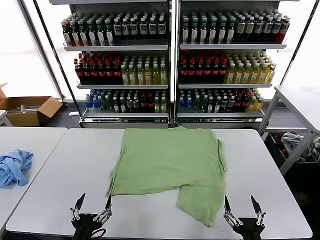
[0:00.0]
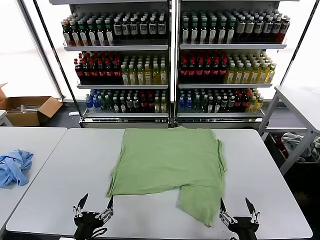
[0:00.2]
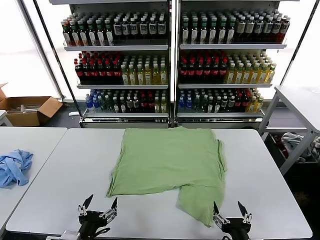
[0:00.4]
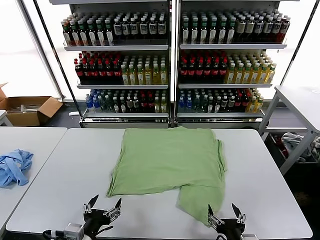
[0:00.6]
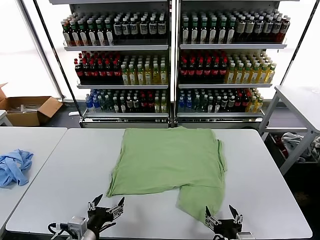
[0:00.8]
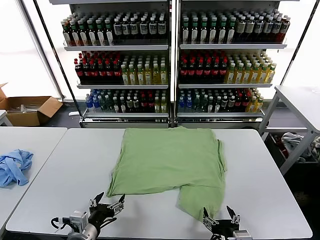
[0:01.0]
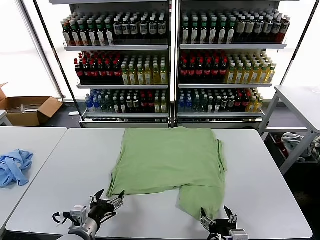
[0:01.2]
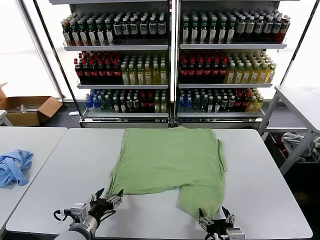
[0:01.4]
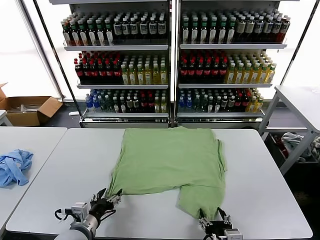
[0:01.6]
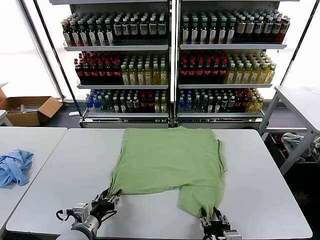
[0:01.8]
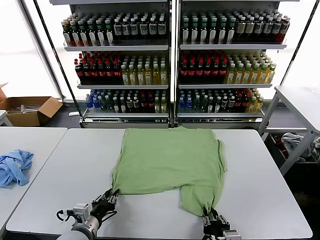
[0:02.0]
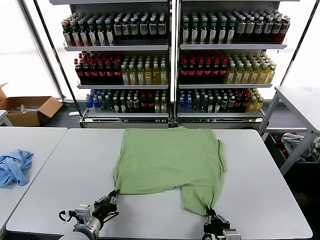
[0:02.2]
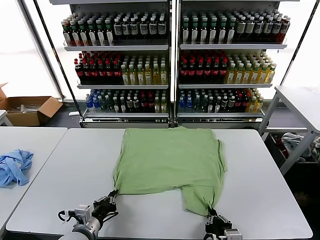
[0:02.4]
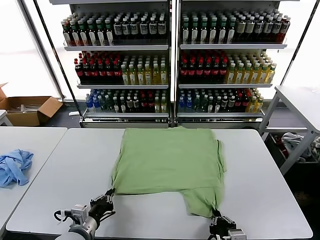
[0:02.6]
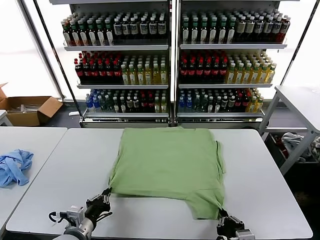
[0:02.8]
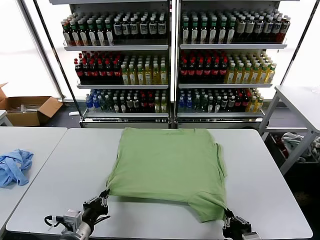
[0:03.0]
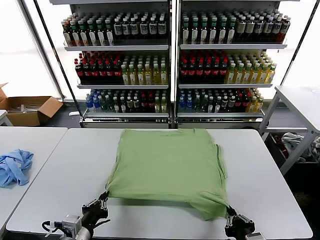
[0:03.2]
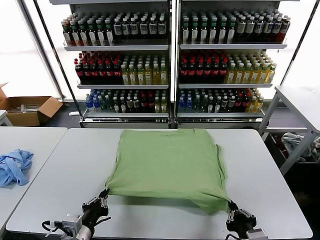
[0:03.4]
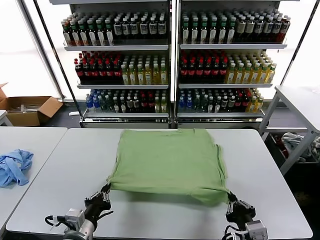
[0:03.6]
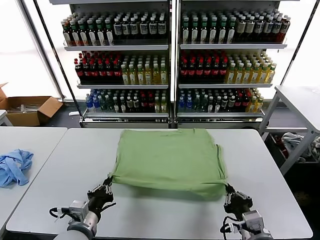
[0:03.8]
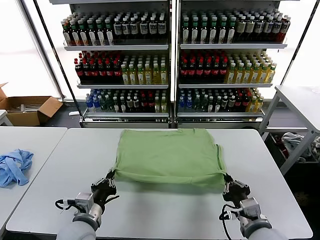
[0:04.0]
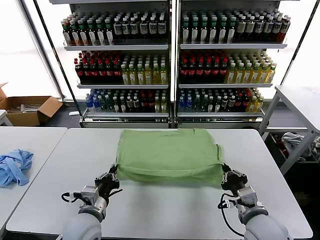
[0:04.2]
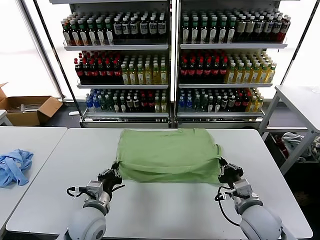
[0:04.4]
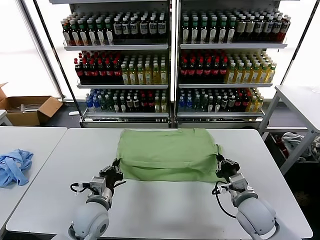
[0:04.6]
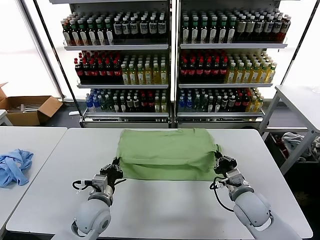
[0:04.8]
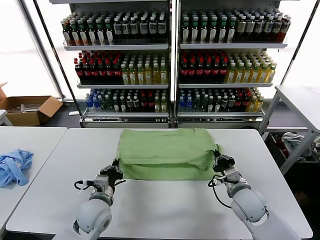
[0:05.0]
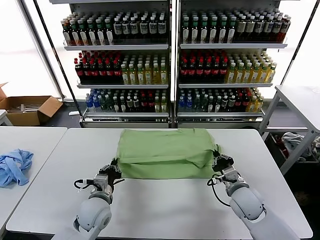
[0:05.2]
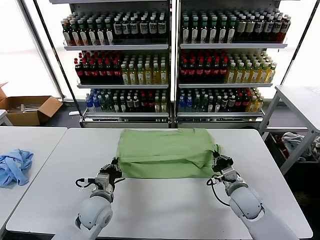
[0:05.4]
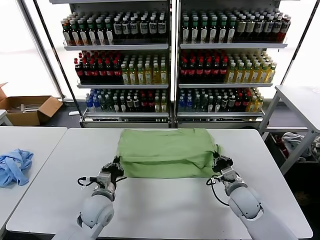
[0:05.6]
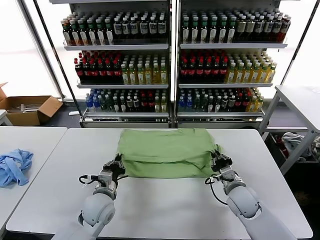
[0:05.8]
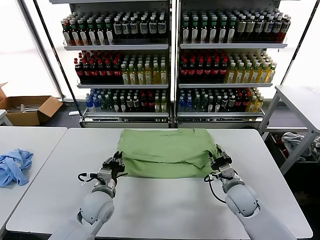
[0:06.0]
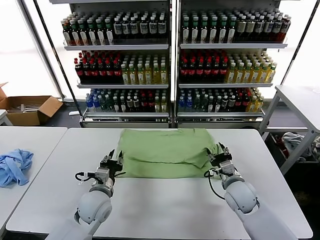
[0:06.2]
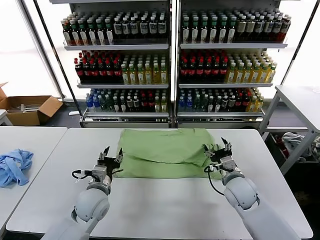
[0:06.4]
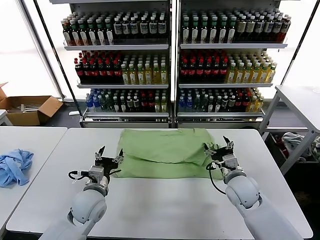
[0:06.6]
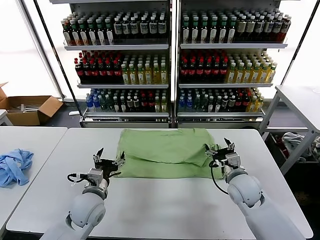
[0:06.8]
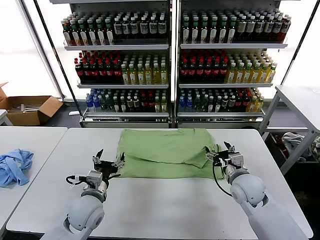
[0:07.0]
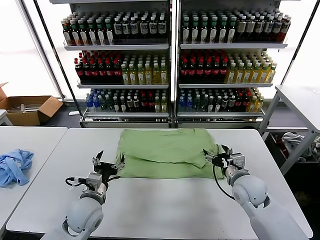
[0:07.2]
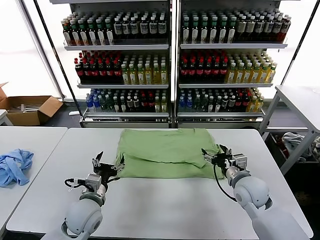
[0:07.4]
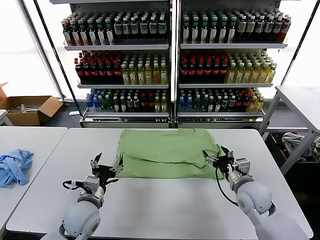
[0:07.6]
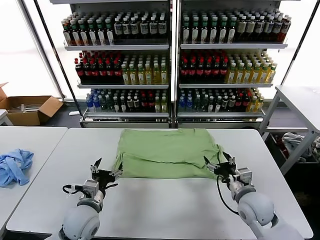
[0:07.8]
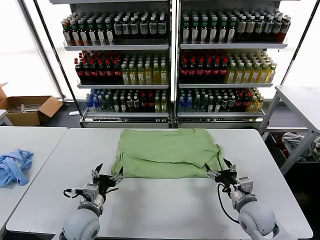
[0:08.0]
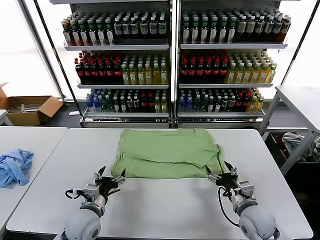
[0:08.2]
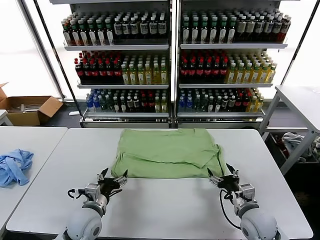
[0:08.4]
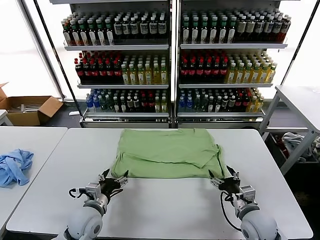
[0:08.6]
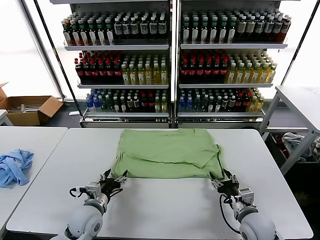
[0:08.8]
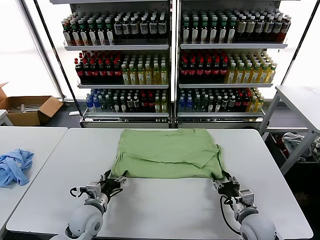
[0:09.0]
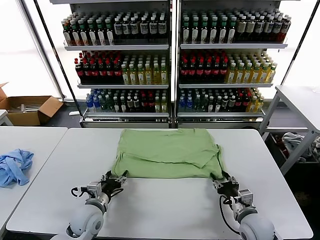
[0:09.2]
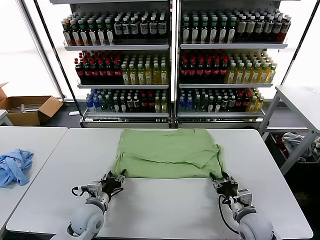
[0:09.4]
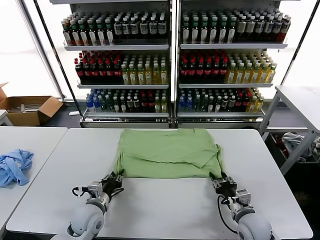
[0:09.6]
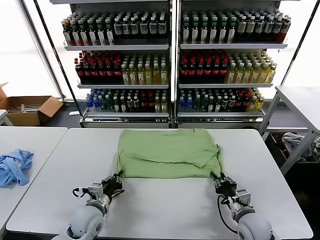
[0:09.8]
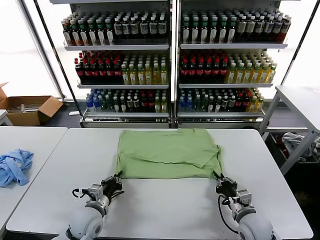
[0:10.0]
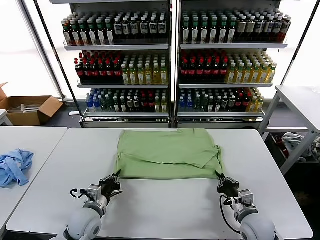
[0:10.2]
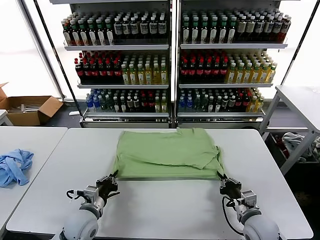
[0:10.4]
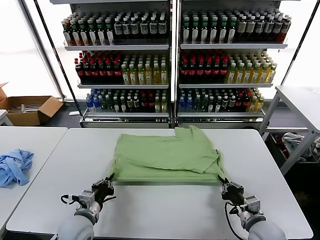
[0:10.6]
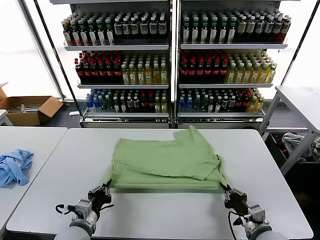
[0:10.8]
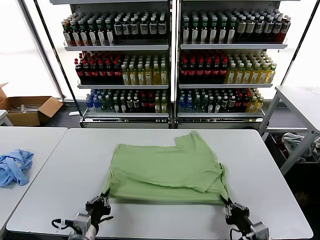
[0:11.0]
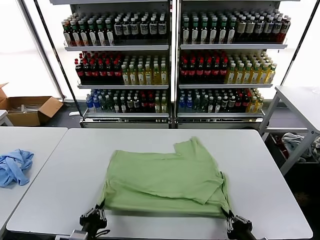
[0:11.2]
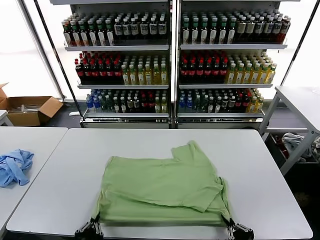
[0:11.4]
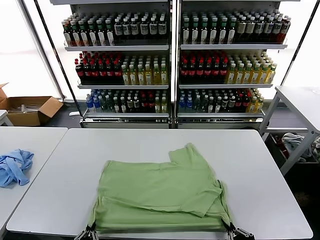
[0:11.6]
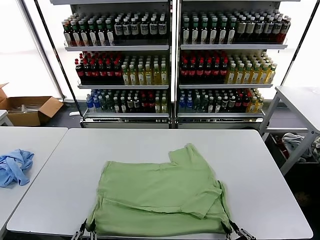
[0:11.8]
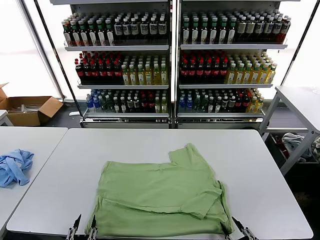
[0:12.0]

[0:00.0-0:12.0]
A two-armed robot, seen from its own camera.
Task of the whole recording: fold and organize the clothes.
Step, 0.0 to 2.4 s: use both grippers simultaneously to clamp the lower edge of the clothing fabric.
Step, 2.6 to 7.0 s: use both grippers to drag the lower edge of the fabric forward and fold it over the upper edge.
Step, 7.2 to 12.0 s: Drag the clothes downward with both gripper.
1.6 to 3.0 s: The right gripper ends up about 5 cm from where it was, and closes. The left gripper closes up.
3.0 to 4.4 s: The left gripper goes some 10 cm forward and to the right. Meanwhile the right gripper heads forward, covering about 15 cm.
4.4 to 6.0 s: The grippers both shift forward by approximately 5 cm. The right gripper opens.
6.0 to 7.6 s: The left gripper shifts by some 5 cm, and opens. Meanwhile the right gripper changes place by about 5 cm, and opens.
7.6 to 9.0 s: The left gripper goes some 5 cm downward. The right gripper travels downward and backward by approximately 10 cm, and closes.
9.0 to 10.4 s: The left gripper closes up; the right gripper closes.
10.4 to 12.0 s: The grippers both shift backward by approximately 20 cm. The right gripper opens up. The left gripper opens up.

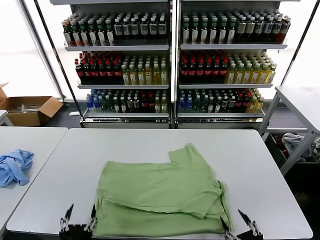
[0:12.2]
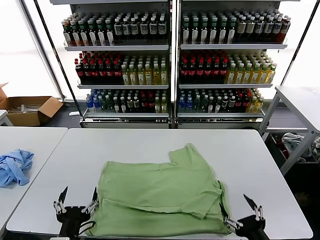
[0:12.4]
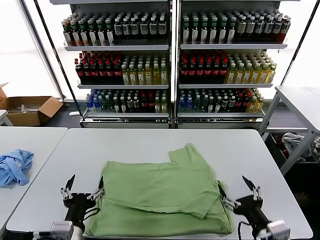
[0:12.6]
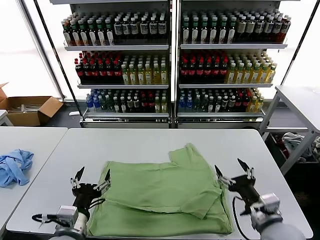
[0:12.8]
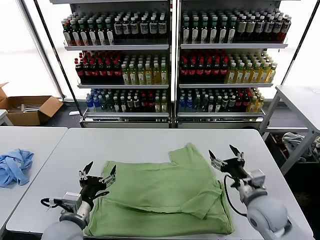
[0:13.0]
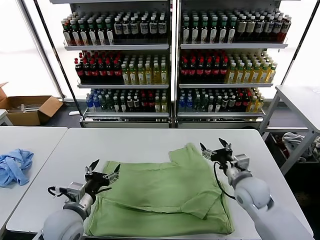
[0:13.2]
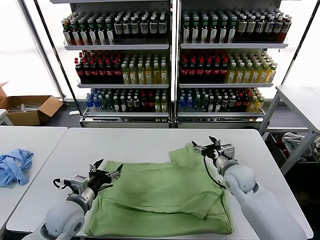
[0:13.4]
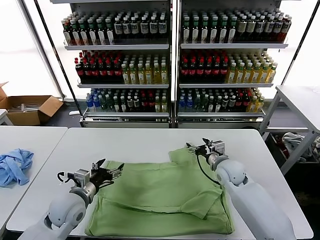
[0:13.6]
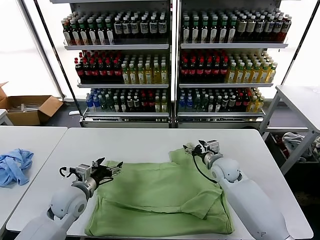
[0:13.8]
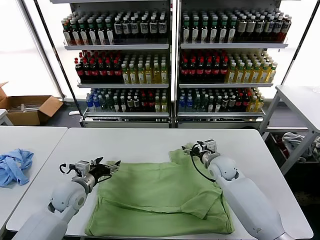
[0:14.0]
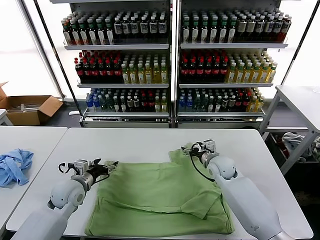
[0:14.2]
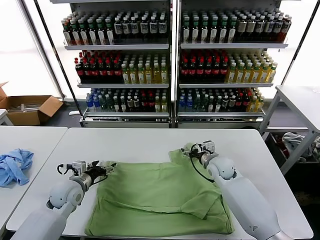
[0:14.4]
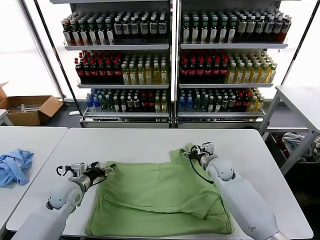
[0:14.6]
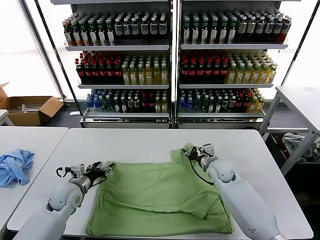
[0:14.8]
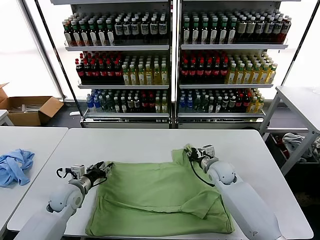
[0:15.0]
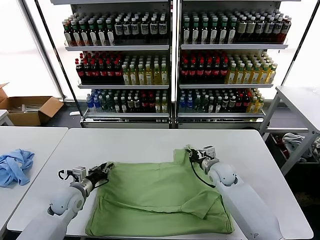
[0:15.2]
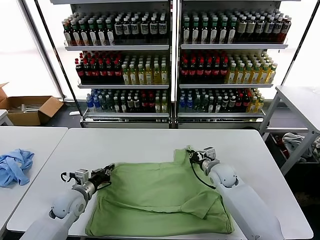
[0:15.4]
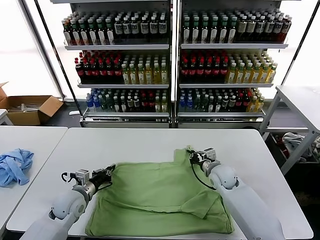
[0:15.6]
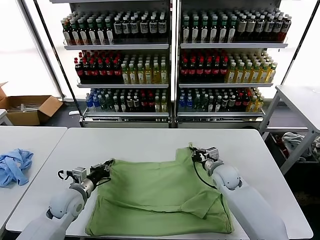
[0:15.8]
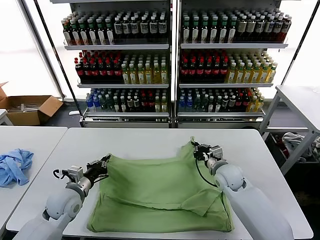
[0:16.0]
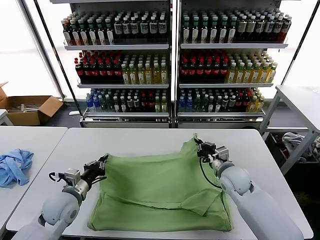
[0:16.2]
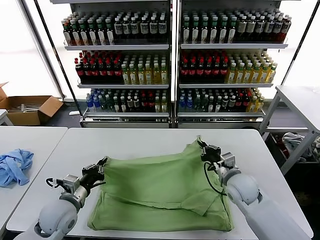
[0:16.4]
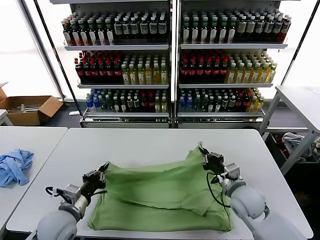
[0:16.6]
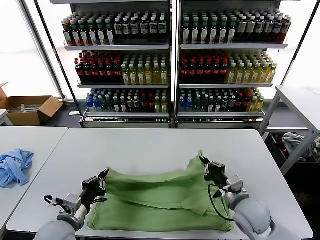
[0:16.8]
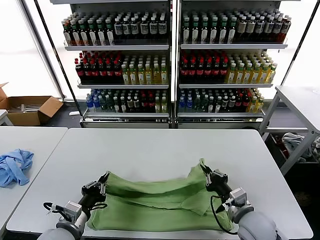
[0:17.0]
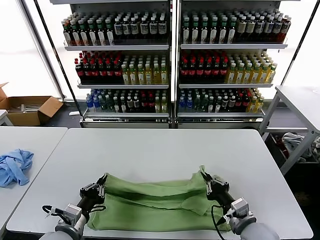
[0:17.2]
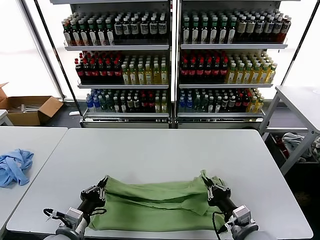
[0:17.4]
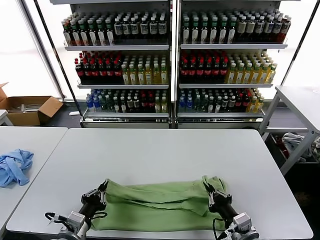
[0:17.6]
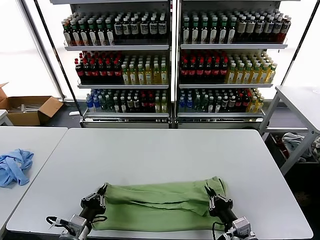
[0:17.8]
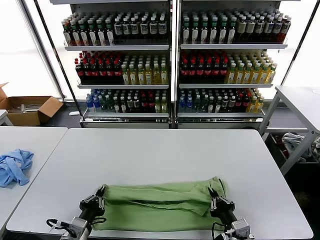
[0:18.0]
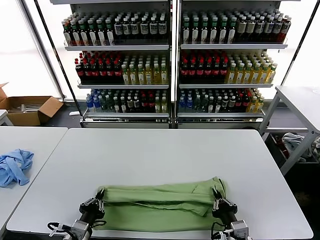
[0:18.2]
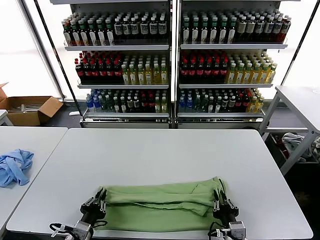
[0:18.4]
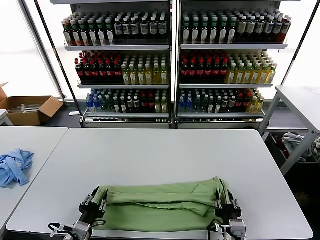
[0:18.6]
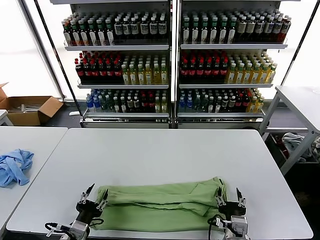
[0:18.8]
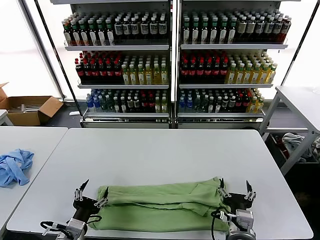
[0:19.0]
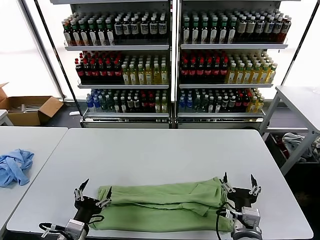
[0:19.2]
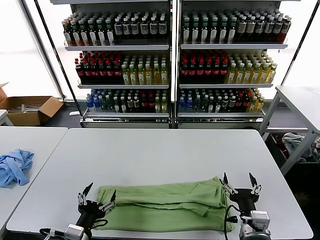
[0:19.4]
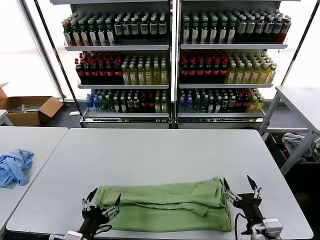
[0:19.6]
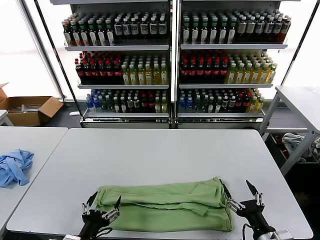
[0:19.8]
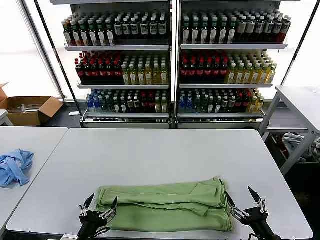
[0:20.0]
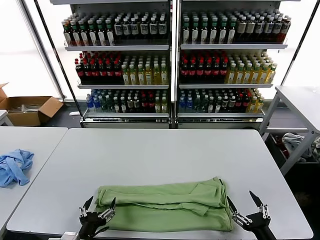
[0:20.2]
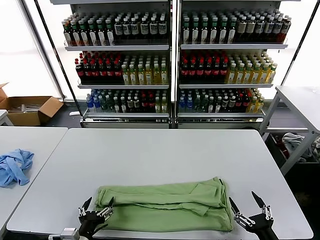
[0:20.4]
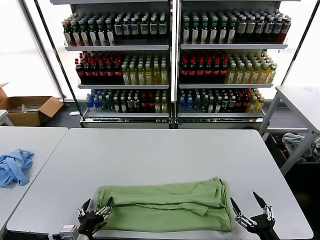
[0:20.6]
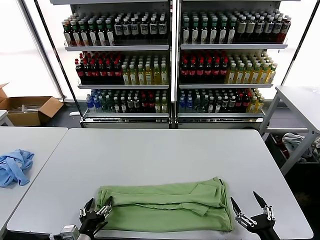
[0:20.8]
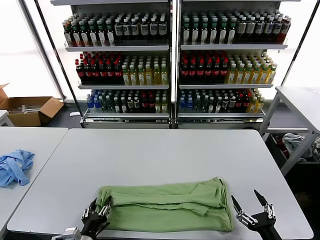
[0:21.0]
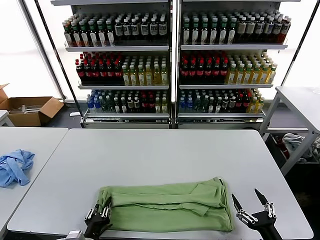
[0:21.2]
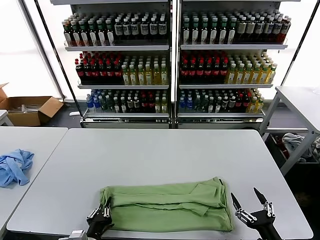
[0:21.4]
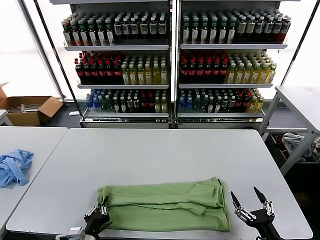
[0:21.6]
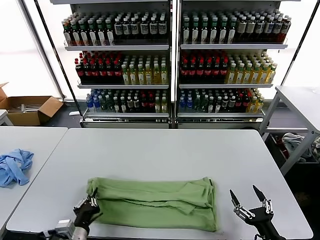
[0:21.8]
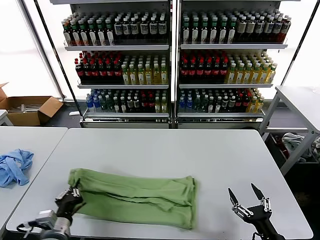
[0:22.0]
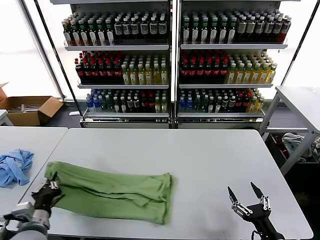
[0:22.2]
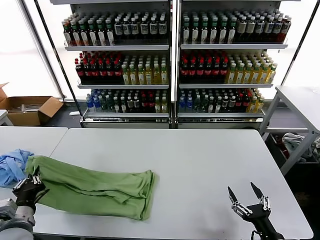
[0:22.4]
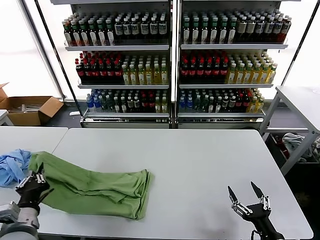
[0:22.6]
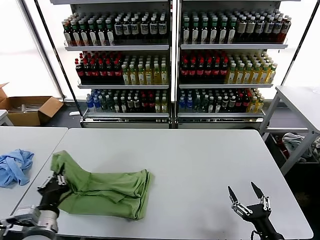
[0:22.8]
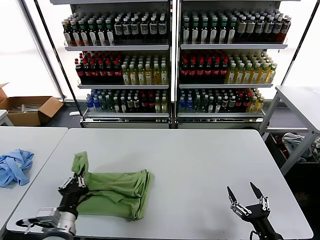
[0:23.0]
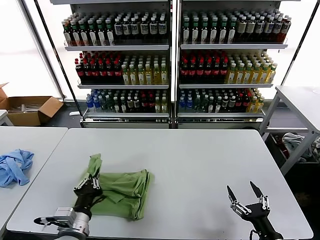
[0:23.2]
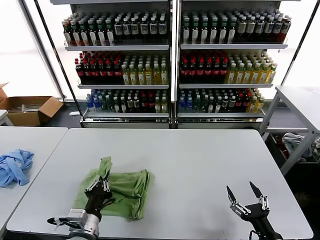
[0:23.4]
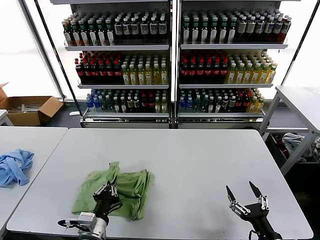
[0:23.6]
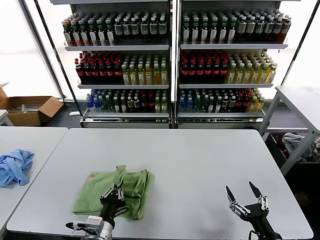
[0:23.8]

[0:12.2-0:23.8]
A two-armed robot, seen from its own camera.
Task of the whole recording: fold and organize the clothes.
Step, 12.2 to 15.4 s: use both grippers simultaneously to clamp the upper edge of the clothing fabric.
Step, 15.6 to 18.8 s: use both grippers to drag the upper edge of the fabric backward and fold it over the lower edge.
Step, 19.0 to 21.4 s: use the left gripper to clamp the left edge of the fabric.
12.2 to 13.6 s: The right gripper travels forward by approximately 35 cm. The left gripper is displaced forward by about 25 cm.
13.6 to 15.0 s: The left gripper moves forward, to the left and downward, roughly 10 cm, and closes, while the right gripper closes up.
15.0 to 16.6 s: The two grippers go roughly 10 cm backward. The left gripper closes its fingers.
16.6 to 18.0 s: The right gripper moves backward, about 15 cm. The left gripper travels backward by approximately 10 cm.
18.0 to 19.4 s: The right gripper opens up; the left gripper opens.
19.4 to 21.0 s: The right gripper moves to the right and backward, about 10 cm. The left gripper goes about 5 cm downward.
21.0 to 22.4 s: The left gripper heads to the left and upward, covering about 15 cm, and closes.
22.4 to 23.8 s: The left gripper travels to the right by some 20 cm.
